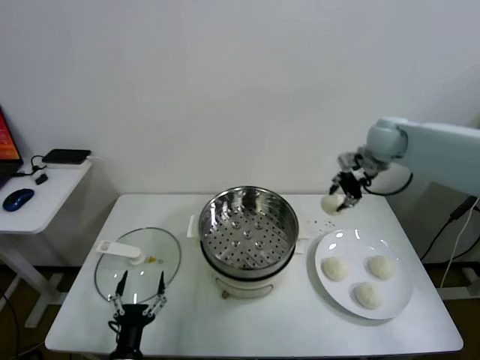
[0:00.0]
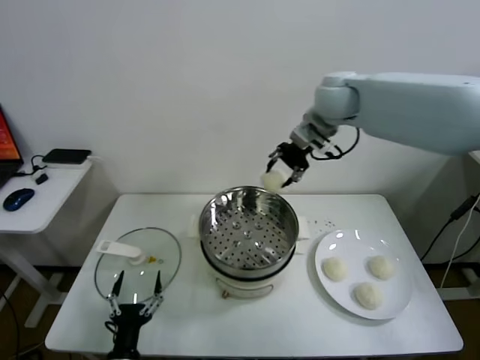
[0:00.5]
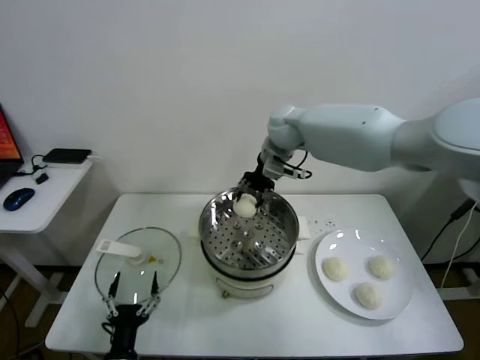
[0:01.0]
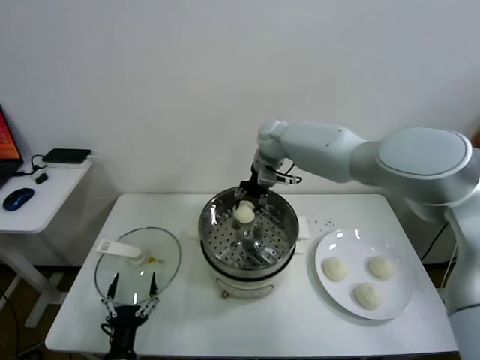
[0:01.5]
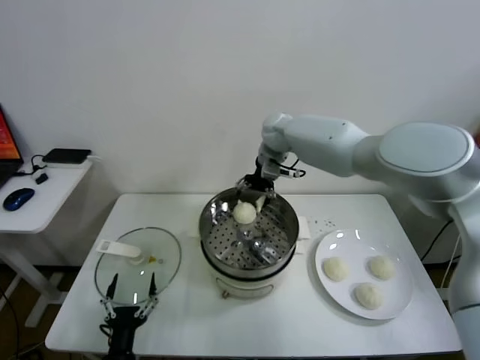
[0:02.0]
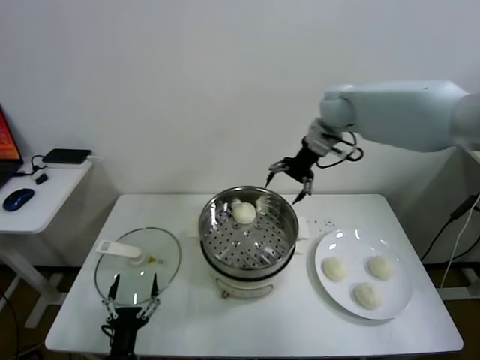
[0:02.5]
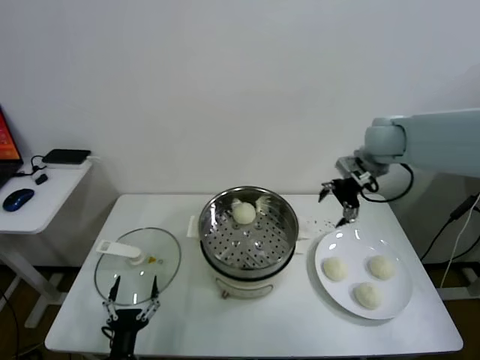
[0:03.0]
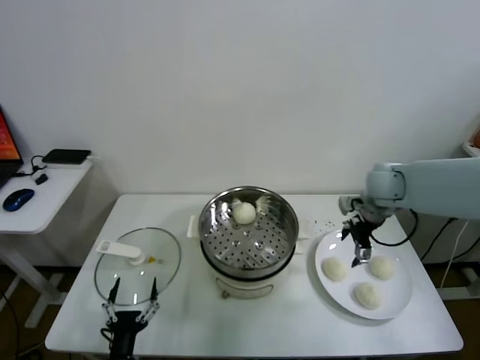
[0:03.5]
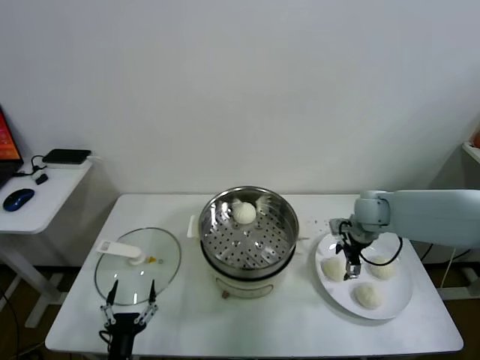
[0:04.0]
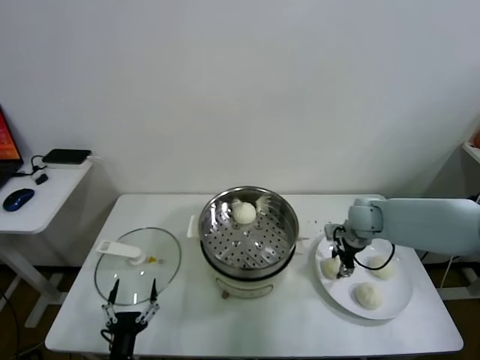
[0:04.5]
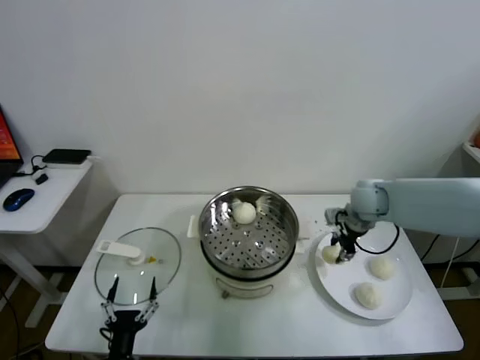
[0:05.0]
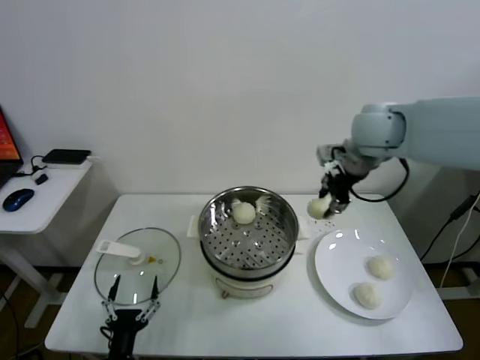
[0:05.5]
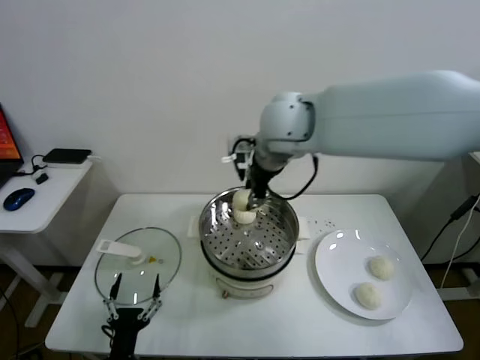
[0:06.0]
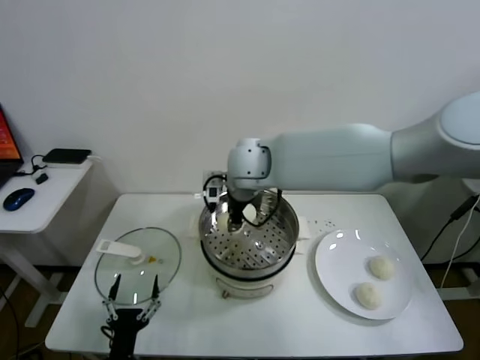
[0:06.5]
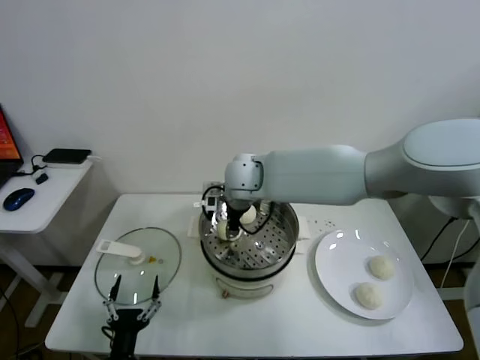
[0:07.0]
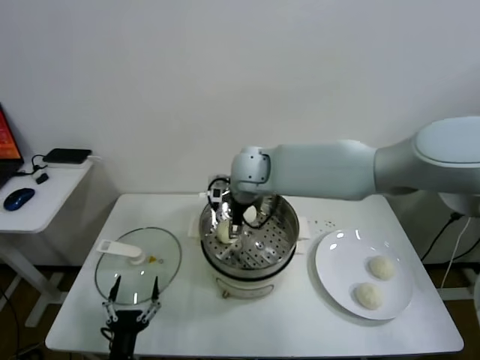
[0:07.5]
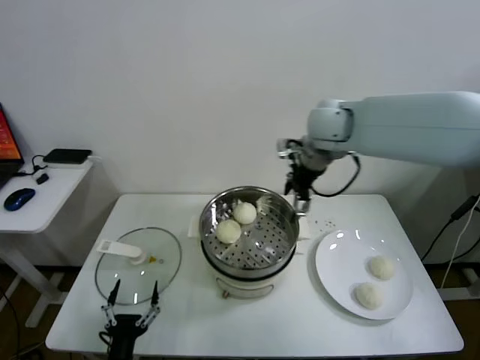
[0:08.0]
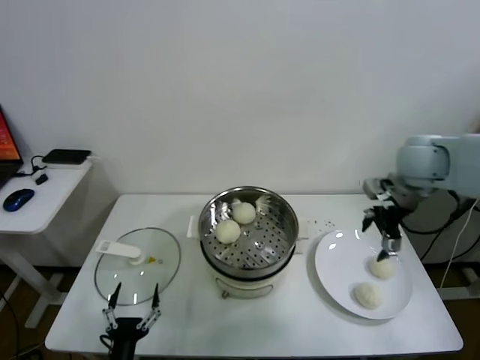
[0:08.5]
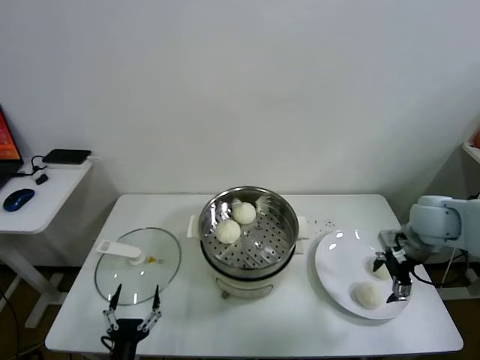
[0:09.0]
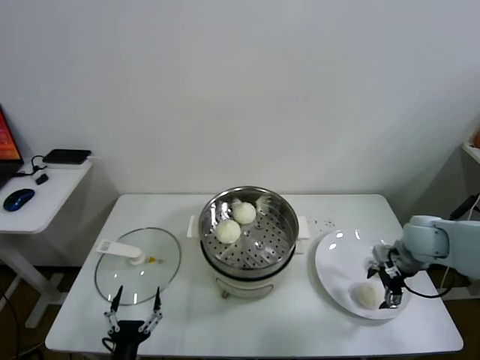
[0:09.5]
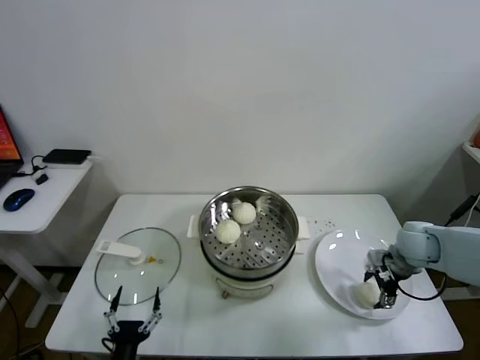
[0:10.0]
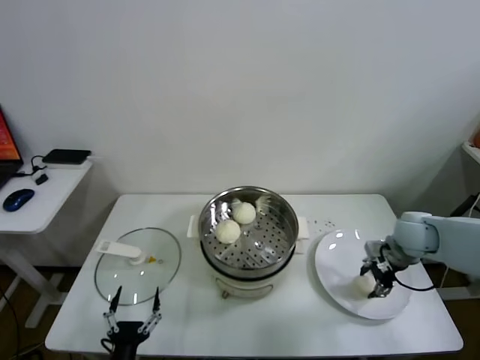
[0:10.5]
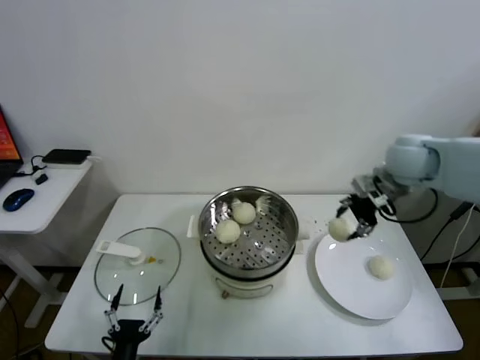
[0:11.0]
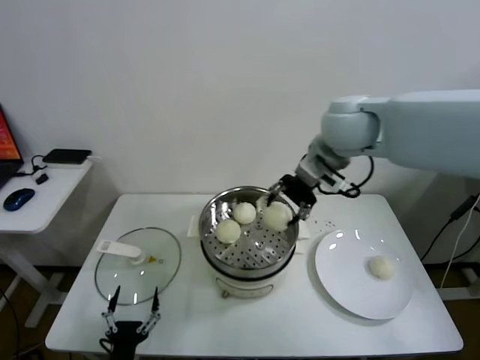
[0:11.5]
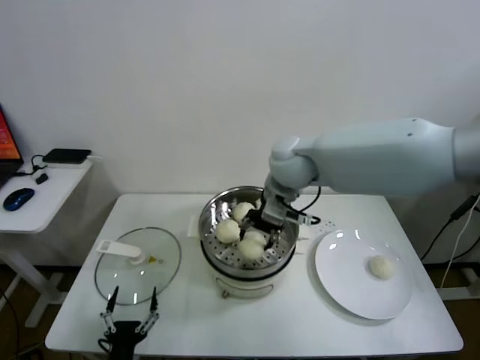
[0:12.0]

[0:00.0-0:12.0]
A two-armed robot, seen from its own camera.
Task of the whole recording: take steamed baozi put them in steamer.
Step, 0:00.0 to 0:02.0: Place the baozi on the steamer with right gripper.
Step, 0:02.5 to 0:04.5: Grasp the baozi in the plate with right gripper.
Step, 0:05.0 to 0:07.0: Place the baozi on the steamer with right gripper.
Step, 0:07.5 to 0:10.0: Grasp the baozi in the plate with right gripper.
0:00.0 to 0:02.0: The right gripper is displaced to the left by some 20 cm, and opens its fingers.
0:02.0 to 0:04.0: The right gripper moves to the right, downward and backward, about 30 cm.
0:04.0 to 0:06.0: The right gripper moves upward and to the left, some 35 cm, and closes.
0:06.0 to 0:08.0: The right gripper heads to the right and forward, covering some 15 cm, and opens.
0:08.0 to 0:10.0: The right gripper heads downward, to the right and backward, covering approximately 35 cm.
0:10.0 to 0:12.0: The right gripper moves to the left and upward, about 35 cm, and closes its fingers.

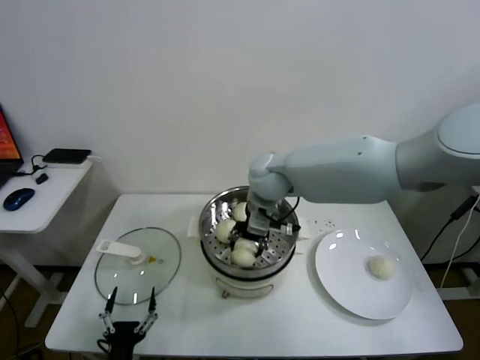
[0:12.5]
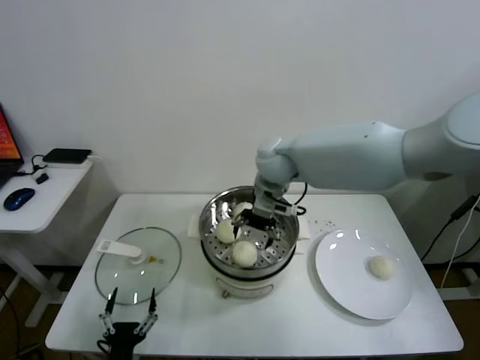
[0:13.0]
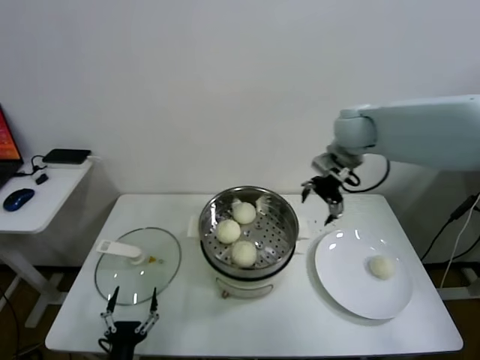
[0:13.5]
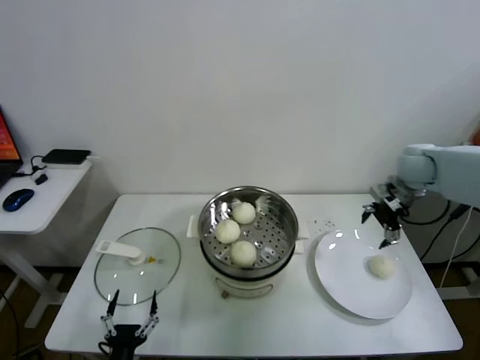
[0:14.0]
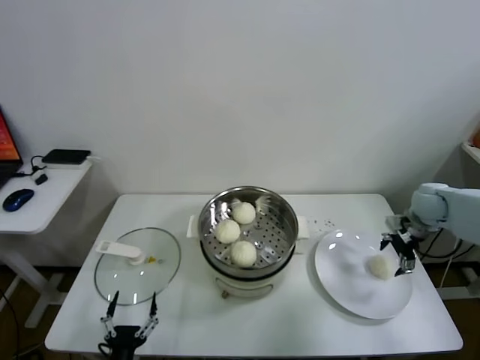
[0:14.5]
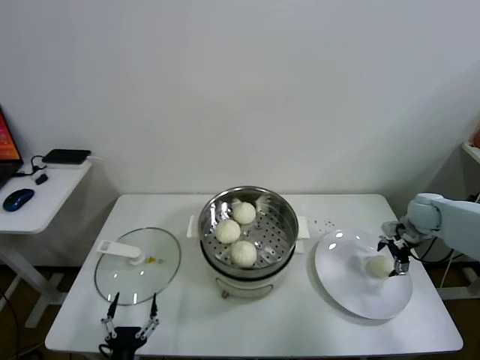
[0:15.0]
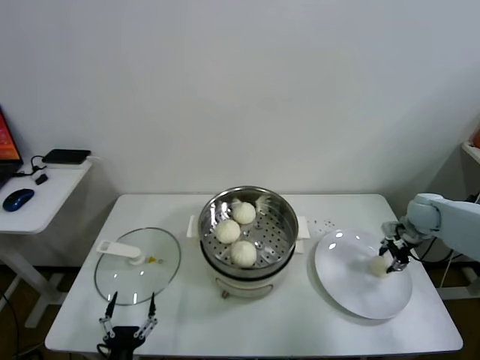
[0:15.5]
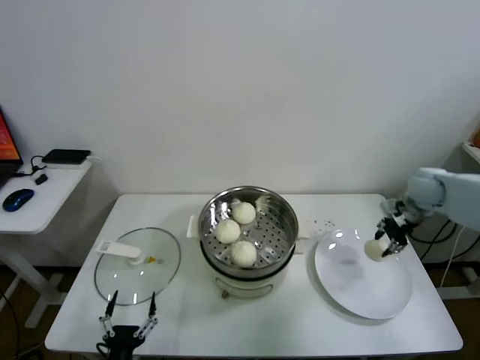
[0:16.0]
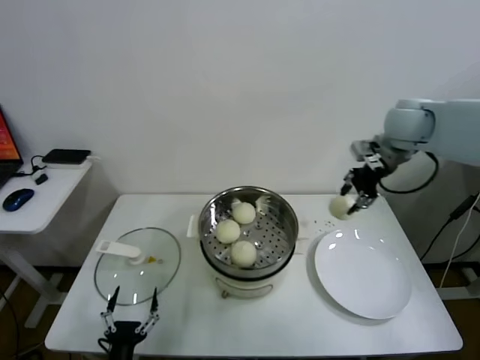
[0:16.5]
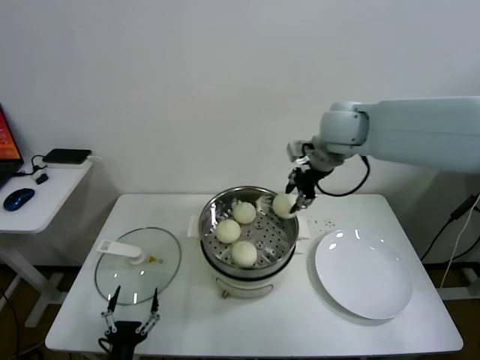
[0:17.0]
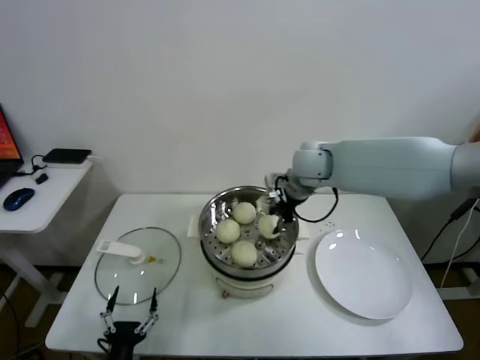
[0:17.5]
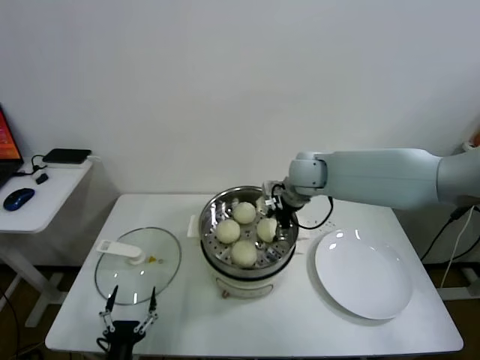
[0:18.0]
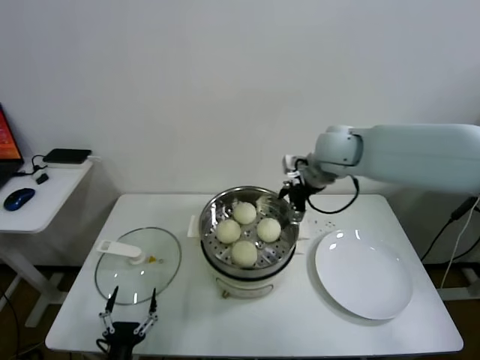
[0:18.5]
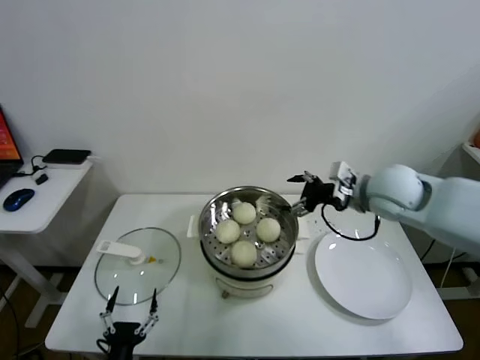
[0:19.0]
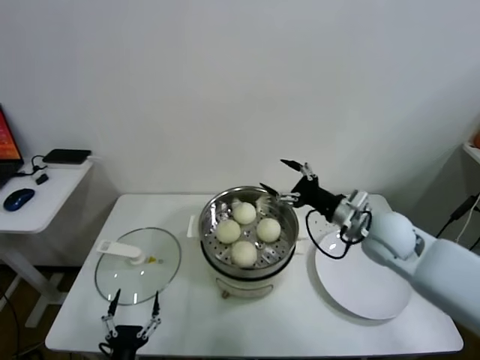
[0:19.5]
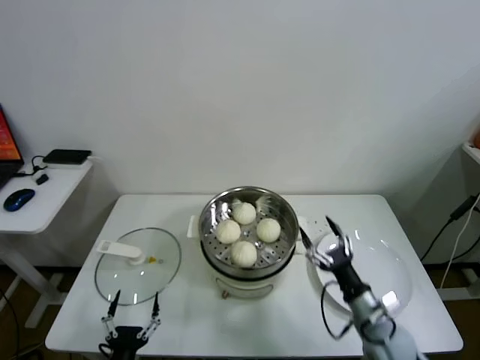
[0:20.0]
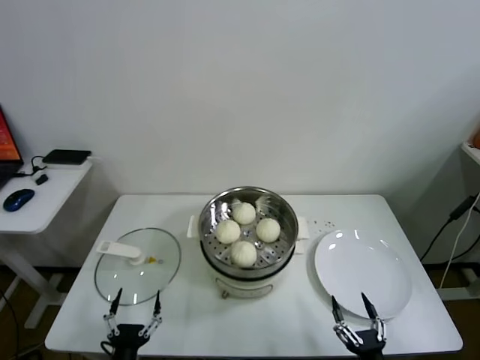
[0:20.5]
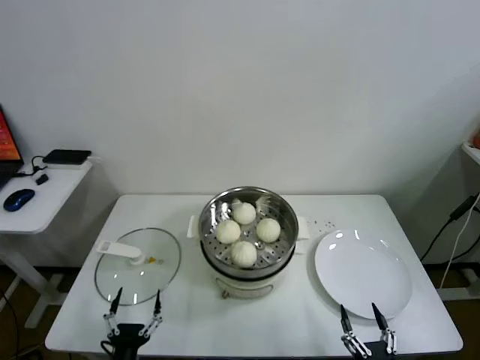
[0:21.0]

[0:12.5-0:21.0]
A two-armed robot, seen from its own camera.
Task of the whole recording: take steamed baozi put them in steamer.
Step, 0:13.0 to 0:15.5: Grasp the baozi in the plate with right gripper.
Step, 0:16.0 to 0:18.0: Place the baozi on the steamer with right gripper.
0:12.5 to 0:14.5: The right gripper travels to the right by approximately 40 cm, and opens its fingers.
0:14.5 to 0:16.5: The right gripper shifts about 25 cm upward and to the left, and closes its fingers.
0:16.5 to 0:19.0: The right gripper moves backward and downward, approximately 10 cm, reaches approximately 20 cm to the left, then returns, and opens its fingers.
0:19.0 to 0:21.0: The right gripper is displaced backward and downward by about 50 cm.

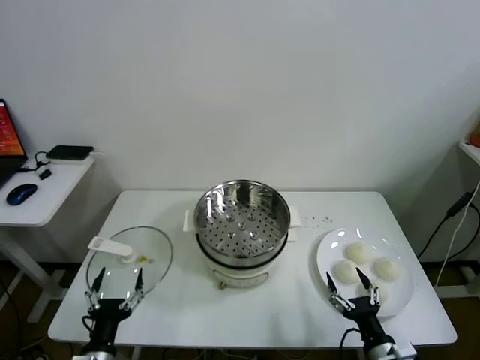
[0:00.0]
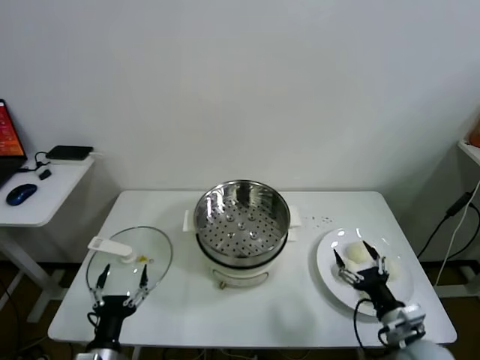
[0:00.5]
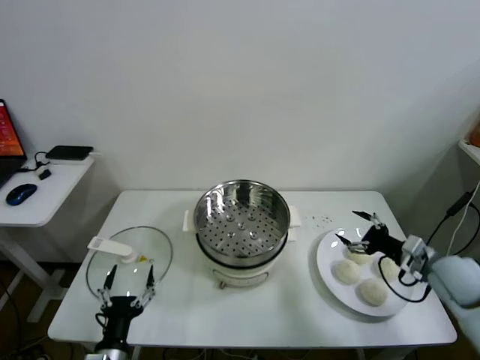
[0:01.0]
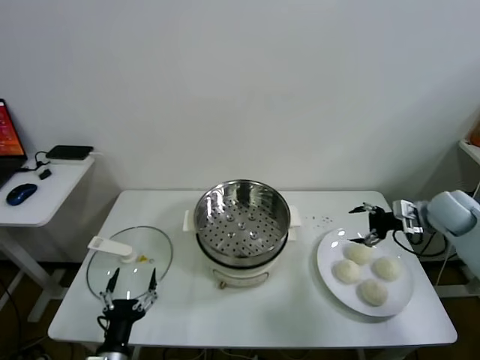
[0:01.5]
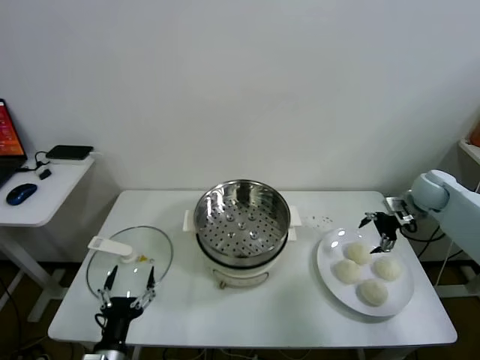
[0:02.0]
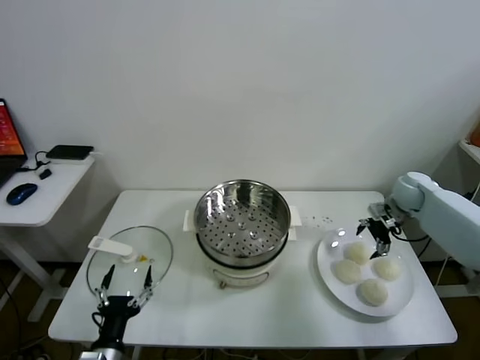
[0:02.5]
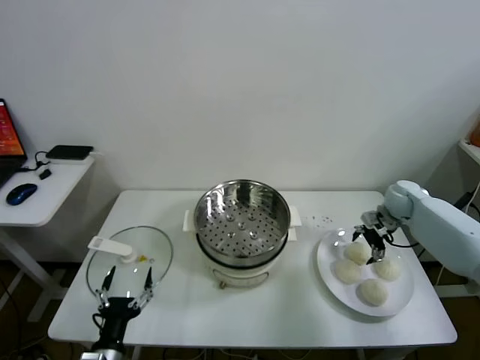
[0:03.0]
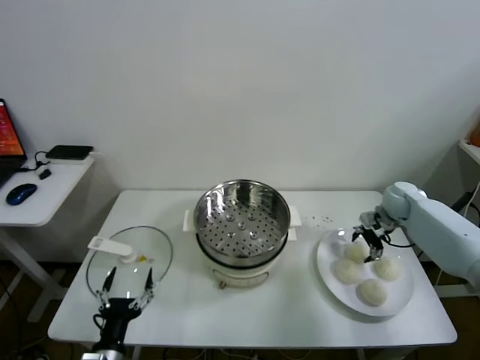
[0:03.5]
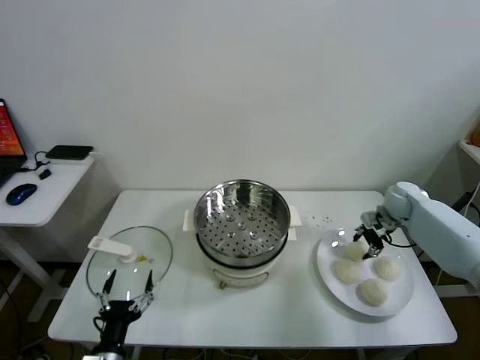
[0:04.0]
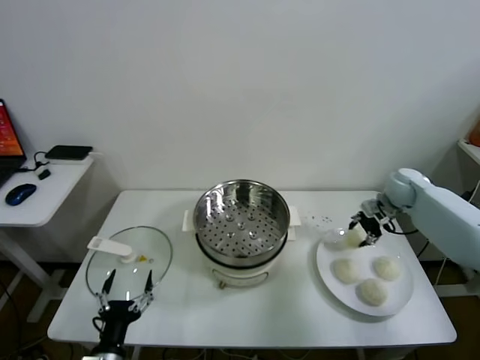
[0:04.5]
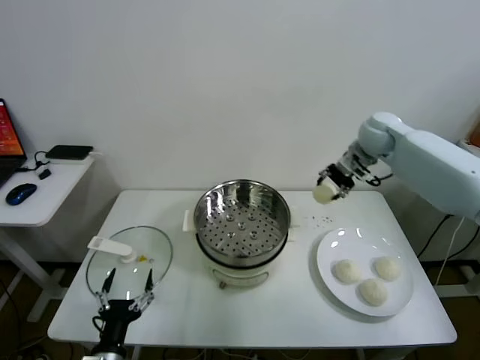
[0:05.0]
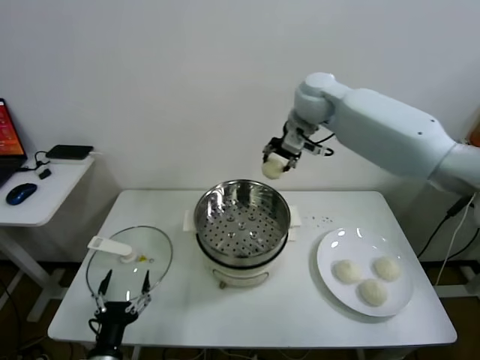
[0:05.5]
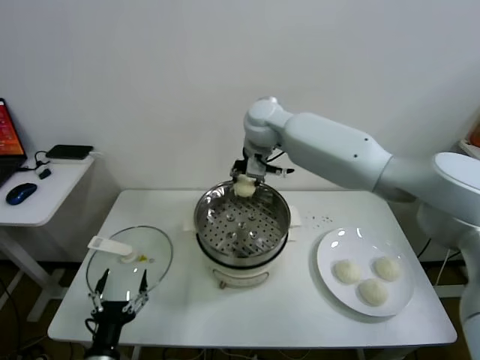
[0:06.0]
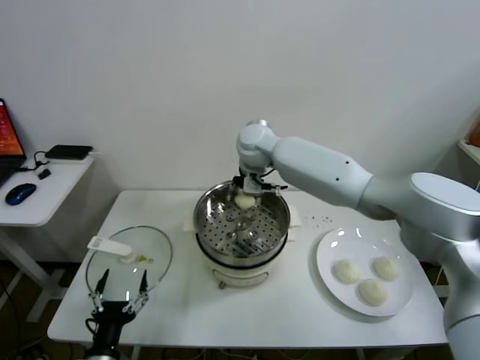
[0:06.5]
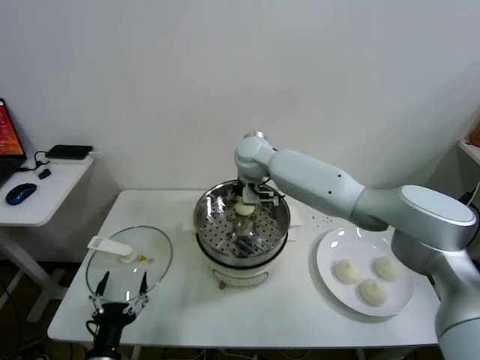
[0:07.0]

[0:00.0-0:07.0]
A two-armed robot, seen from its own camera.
Task of the whole recording: take steamed baozi put them in steamer.
Step, 0:00.0 to 0:03.5: Grasp the baozi in the plate with right gripper.
0:02.0 to 0:03.5: The right gripper heads downward, covering roughly 5 cm, and closes its fingers.
0:03.5 to 0:05.0: The right gripper heads upward and to the left, covering approximately 25 cm, and closes.
0:05.0 to 0:07.0: The right gripper travels to the left by approximately 25 cm.
